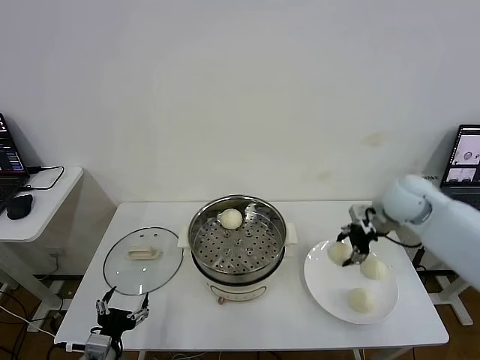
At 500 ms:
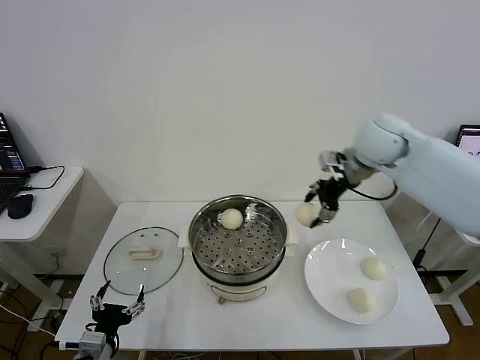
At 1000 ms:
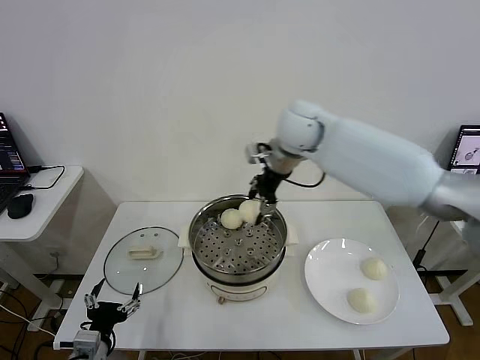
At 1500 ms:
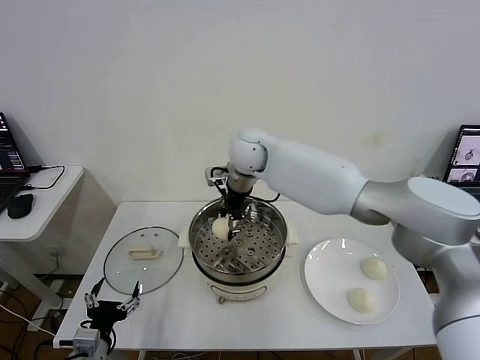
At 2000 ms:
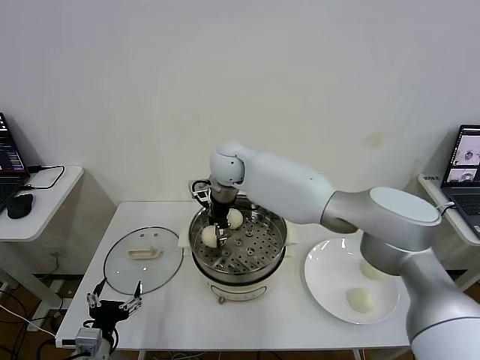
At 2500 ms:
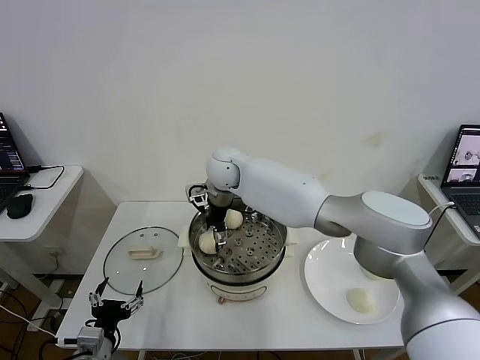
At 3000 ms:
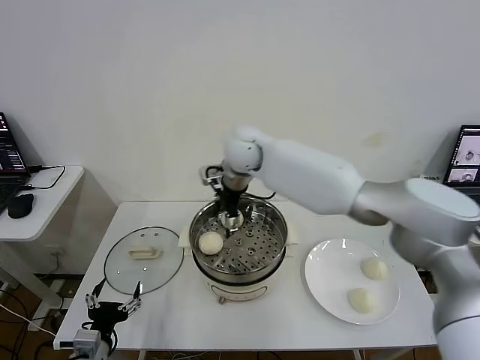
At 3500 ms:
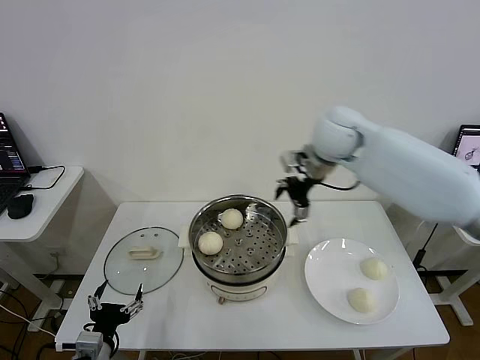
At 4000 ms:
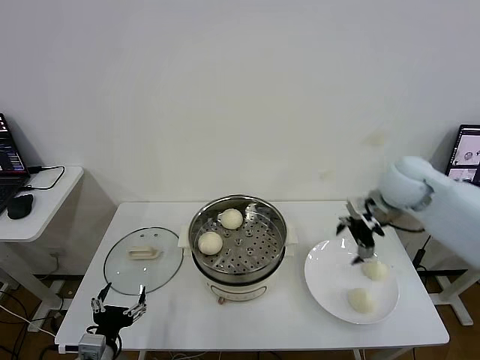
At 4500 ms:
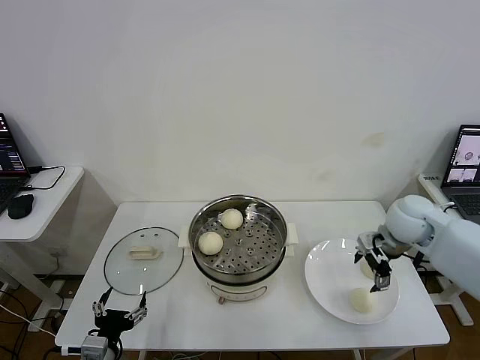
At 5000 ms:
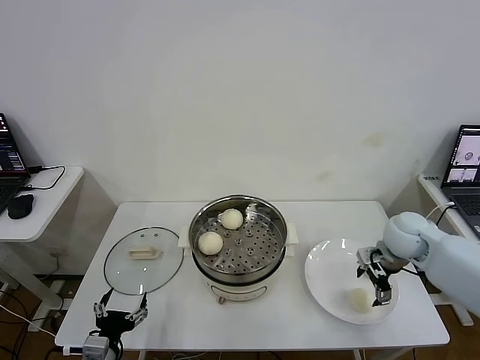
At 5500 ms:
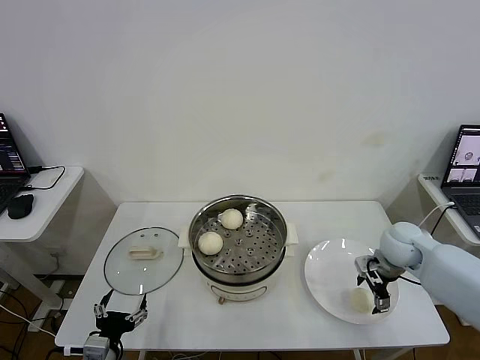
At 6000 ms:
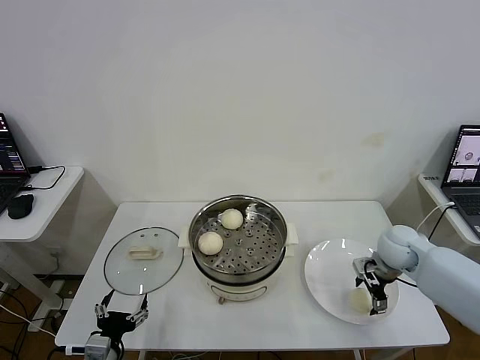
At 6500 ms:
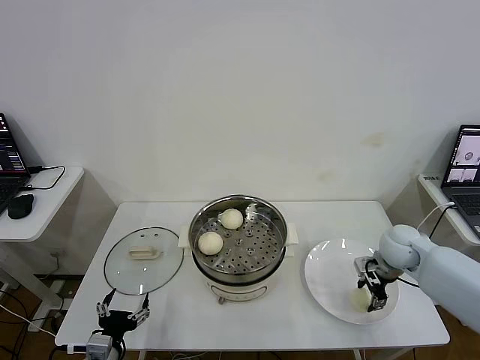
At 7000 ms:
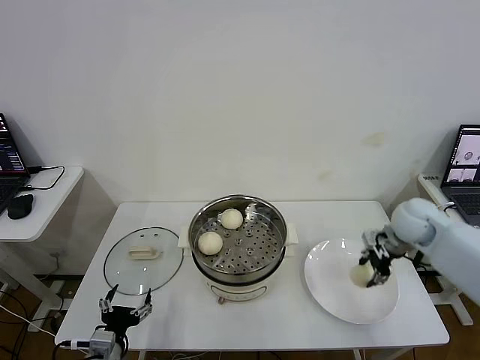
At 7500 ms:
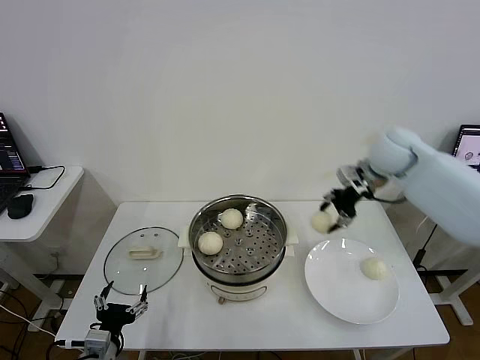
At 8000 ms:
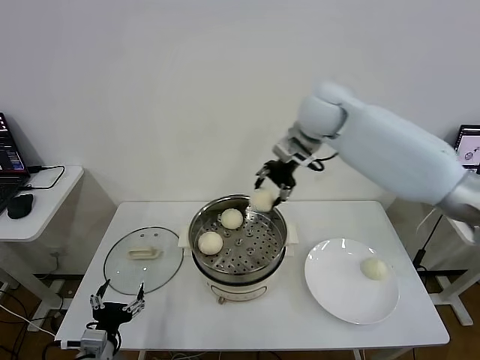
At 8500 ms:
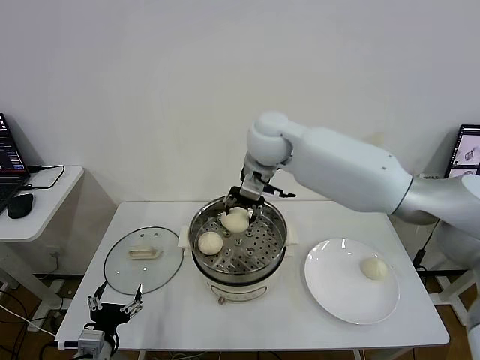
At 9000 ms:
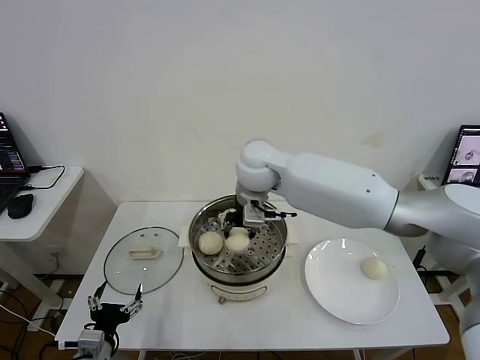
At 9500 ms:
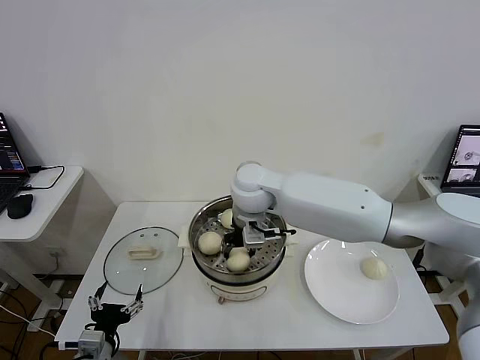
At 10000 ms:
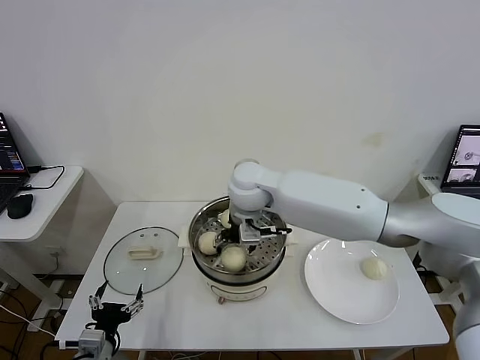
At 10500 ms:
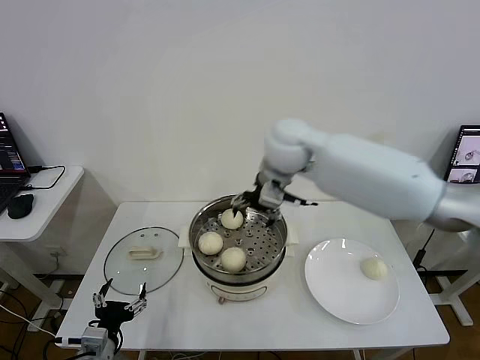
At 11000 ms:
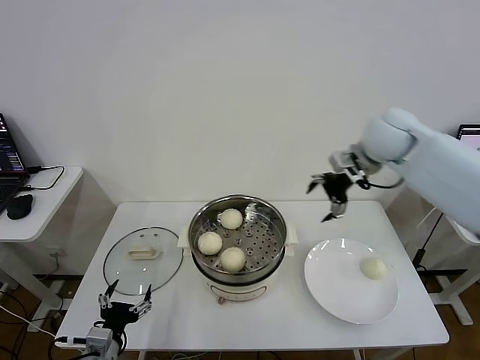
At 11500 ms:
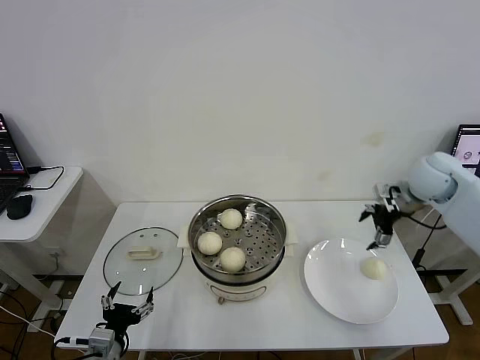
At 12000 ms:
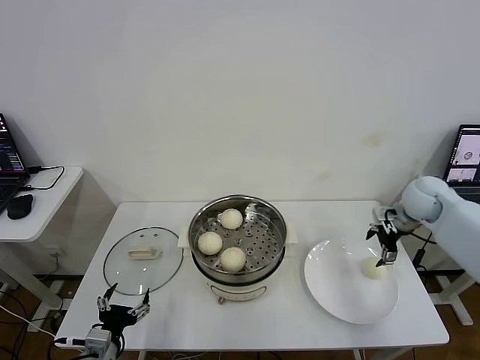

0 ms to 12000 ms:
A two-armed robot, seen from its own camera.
Task of the whole recording: take steamed baozi put them in steamer then cover it.
Step, 0 ms to 2500 ms: Place the baozi on the steamer with right gripper.
Step, 3000 ms to 6500 ms: Grasp the baozi in the plate with right gripper.
Step, 7000 ms to 10000 ms: Place the baozi on the steamer with right gripper.
0 ms to 2000 ms: The right gripper heads to the left, covering approximately 40 cm.
2000 ms to 4000 ms: The right gripper goes some 35 cm to the right, and opens.
4000 ms to 6000 ms: The right gripper moves downward, approximately 15 cm.
6000 ms to 8000 ms: The right gripper goes about 40 cm upward, to the left and forward, and closes its fingers.
8000 ms to 10000 ms: The right gripper moves downward, to the left and backward, about 20 cm, and opens up.
10000 ms to 12000 ms: The right gripper shifts approximately 40 cm to the right.

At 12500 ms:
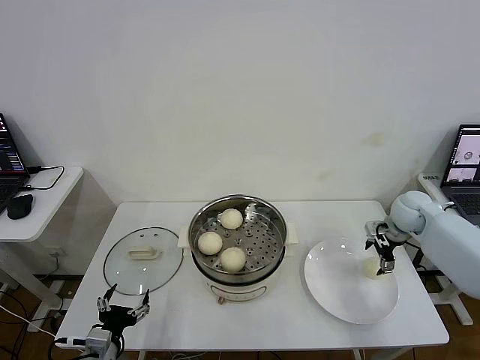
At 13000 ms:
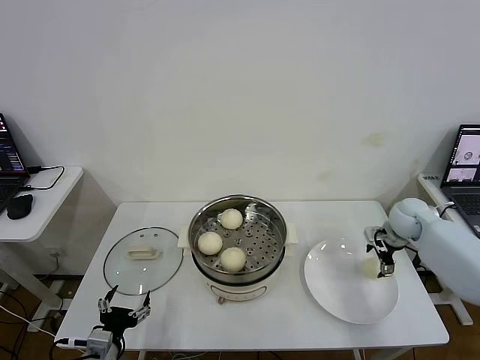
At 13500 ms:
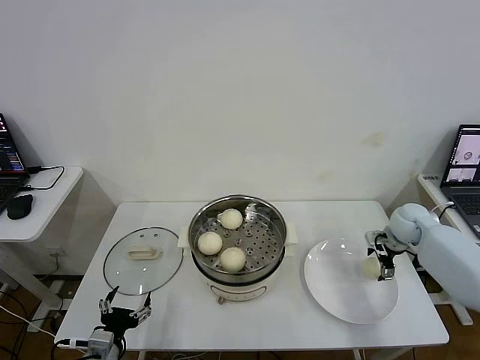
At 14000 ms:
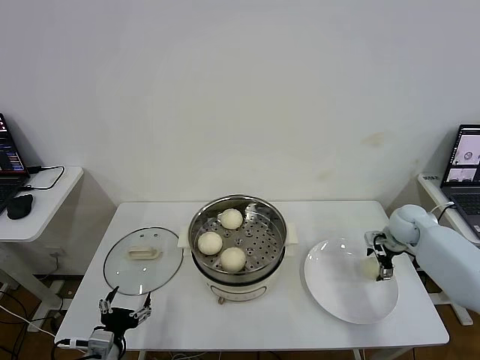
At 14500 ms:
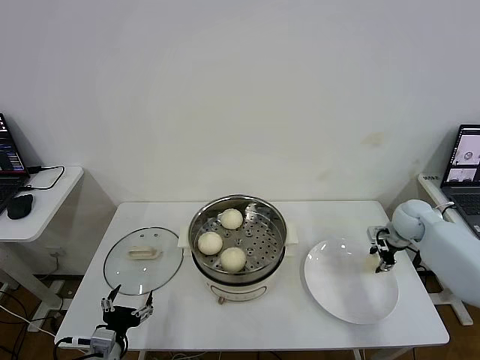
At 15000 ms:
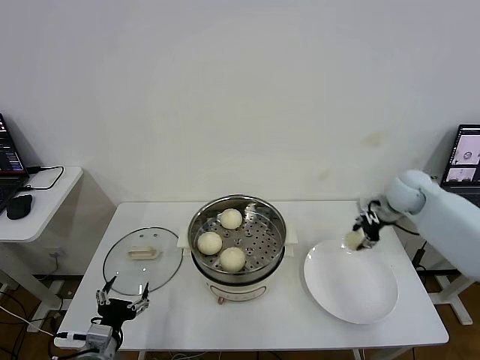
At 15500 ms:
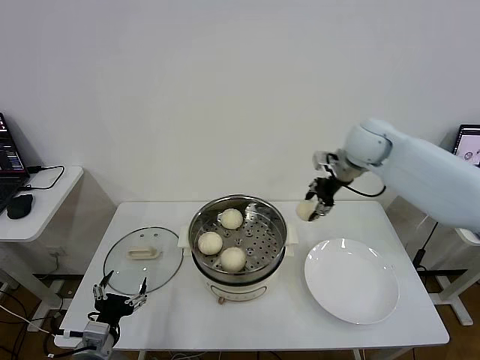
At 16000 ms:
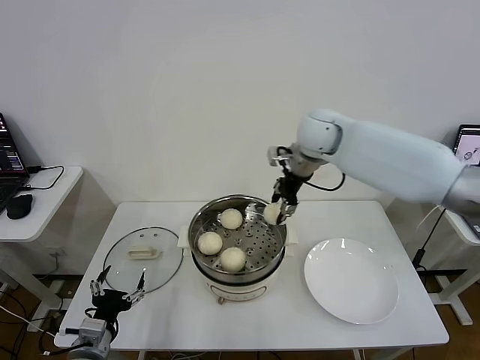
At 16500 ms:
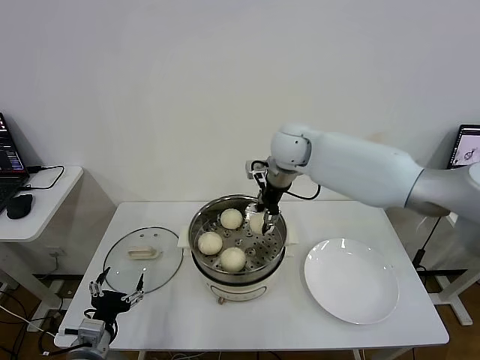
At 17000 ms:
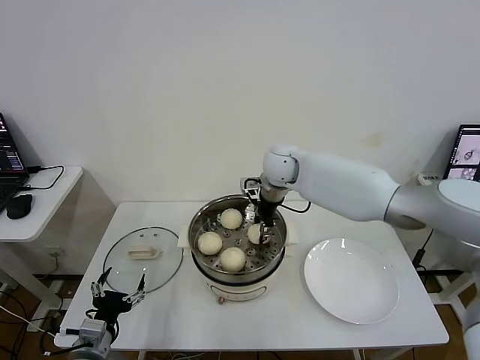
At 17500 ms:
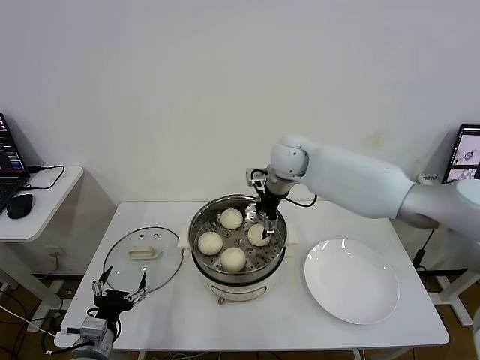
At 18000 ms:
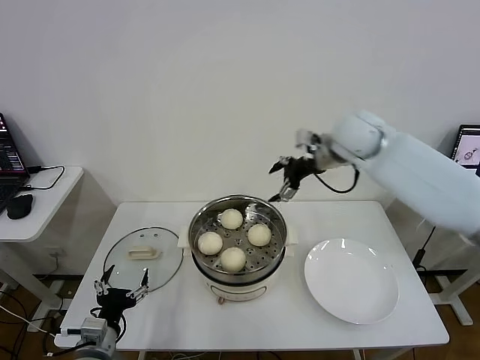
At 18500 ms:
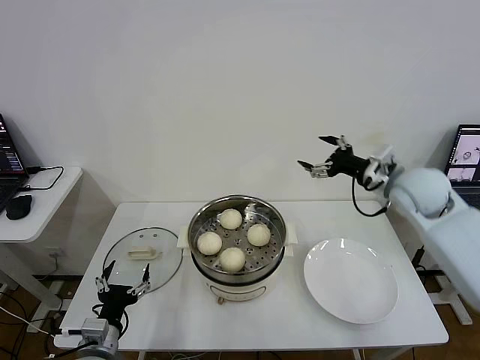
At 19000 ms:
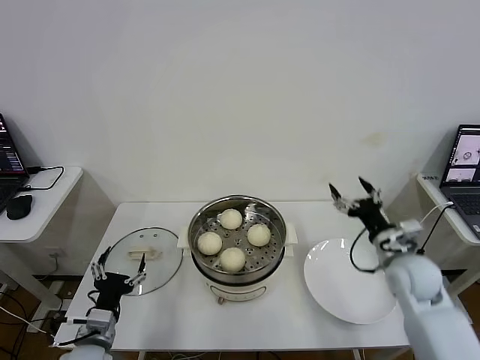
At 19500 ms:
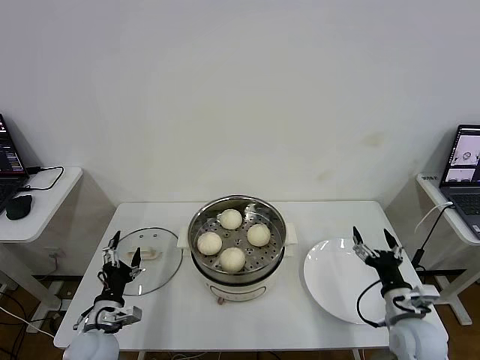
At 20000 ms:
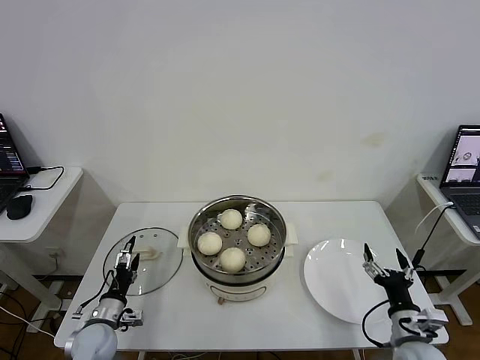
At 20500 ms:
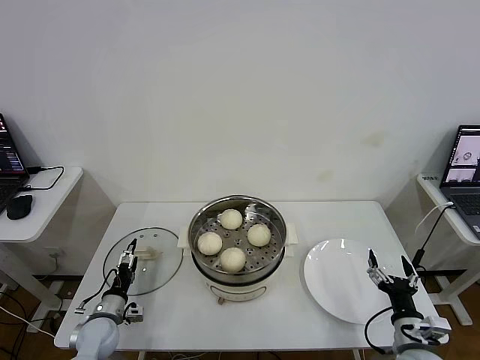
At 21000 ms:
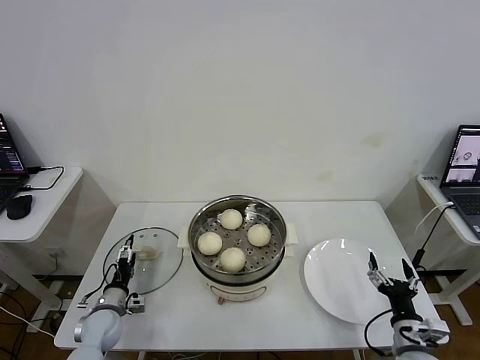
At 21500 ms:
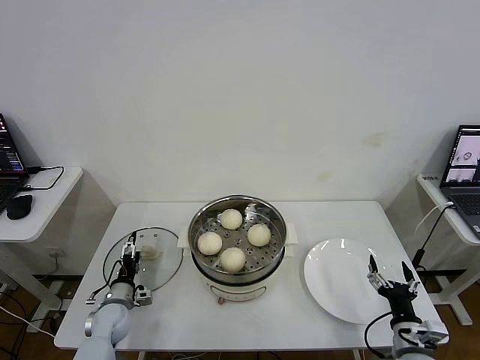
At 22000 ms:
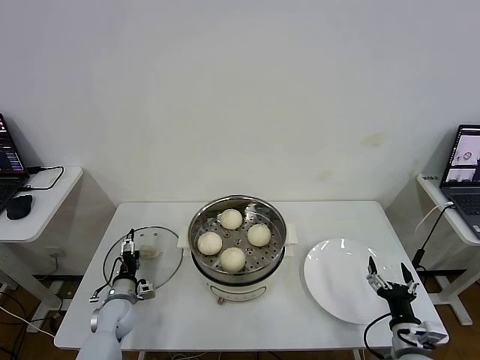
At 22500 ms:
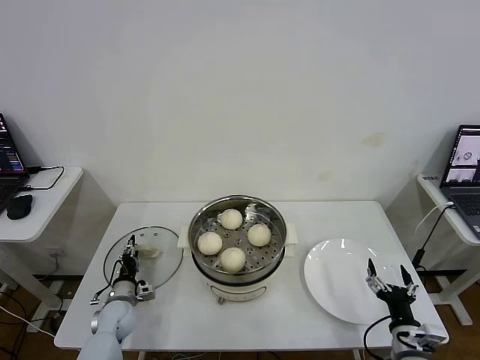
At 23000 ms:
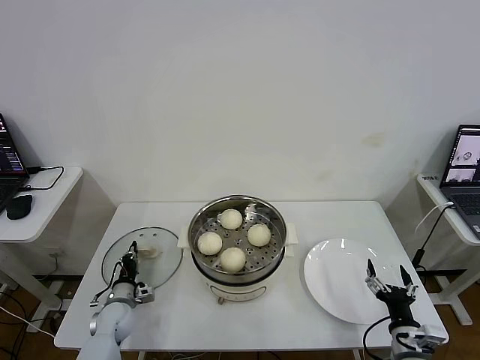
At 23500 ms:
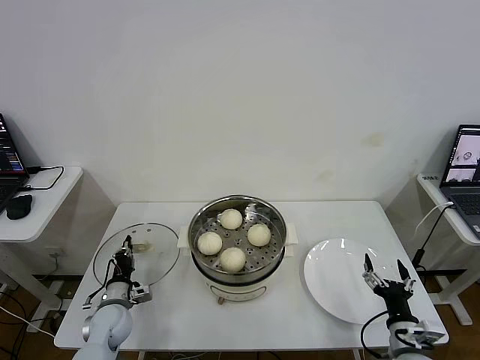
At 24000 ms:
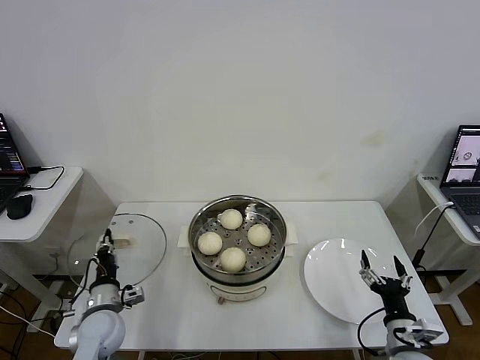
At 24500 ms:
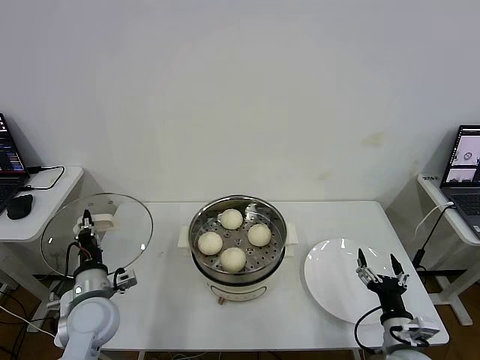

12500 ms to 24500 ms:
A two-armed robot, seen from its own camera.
Task of the whole recording: take steamed baozi put them in steamer then cover it.
Step, 12500 ms to 14500 ms: Grasp the baozi in the plate with right gripper.
Step, 15000 ms to 17000 ms: Place the baozi on the steamer with right gripper.
Step, 17500 ms to 23000 ms: Grasp the pot lid with left gripper.
12500 ms to 14500 ms: The right gripper closes its fingers.
14500 ms to 16500 ms: The right gripper heads to the left and upward, covering about 35 cm.
16500 ms to 18500 ms: The right gripper shifts approximately 25 cm to the right and backward, and opens.
18500 ms to 20500 ms: The right gripper travels backward and downward by some 35 cm; the left gripper is displaced forward, downward and to the left by some 15 cm.
20500 ms to 22500 ms: The left gripper heads forward, covering some 5 cm, and closes up.
22500 ms to 24500 ms: The left gripper travels upward by approximately 15 cm, and closes.

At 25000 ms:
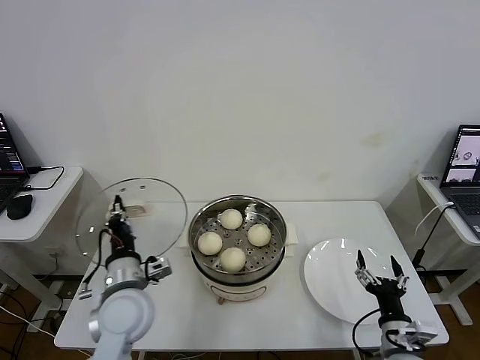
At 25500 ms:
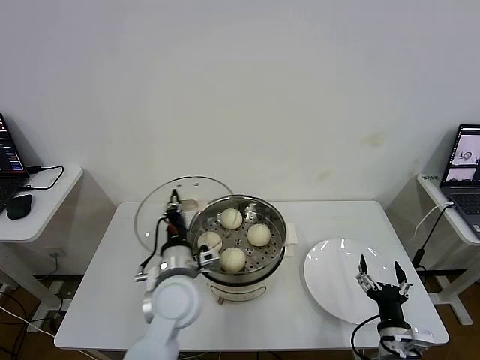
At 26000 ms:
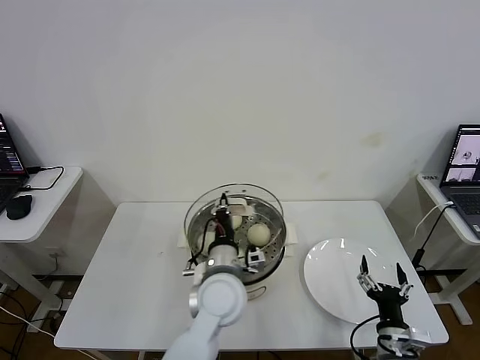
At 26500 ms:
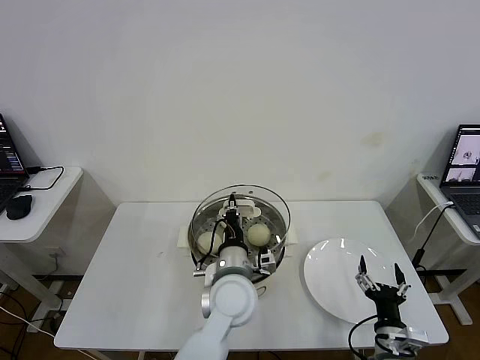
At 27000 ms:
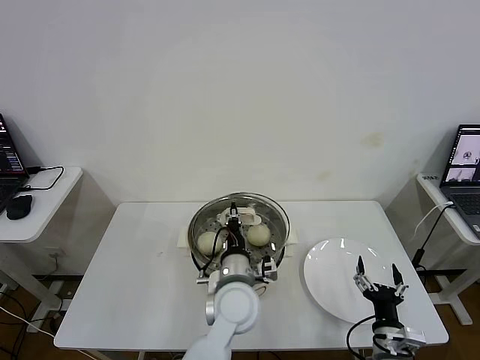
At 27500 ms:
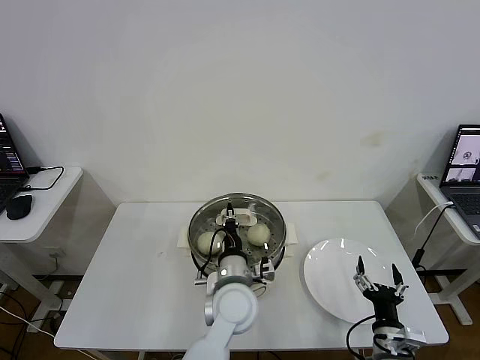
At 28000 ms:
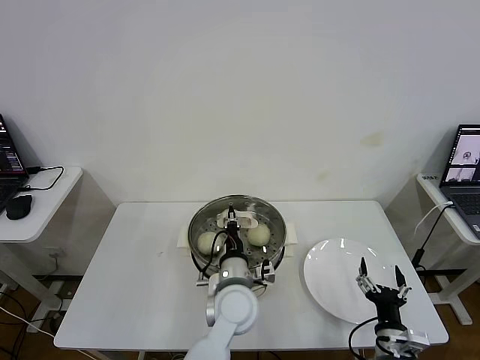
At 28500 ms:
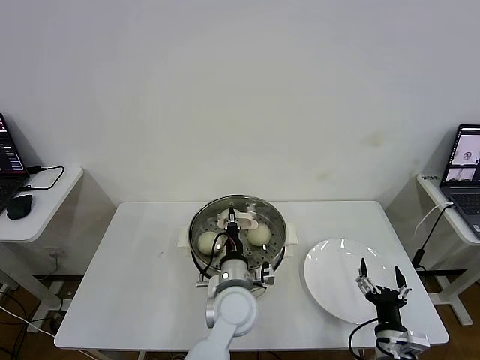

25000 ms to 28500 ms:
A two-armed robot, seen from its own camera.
Task of the whole recording: take steamed baozi put them in steamer then cover it.
25000 ms to 27000 ms: The left gripper moves to the right, about 20 cm.
27000 ms to 28500 ms: The grippers stay close to where they were, moving slightly.
